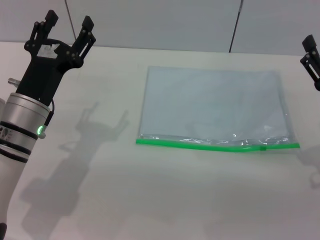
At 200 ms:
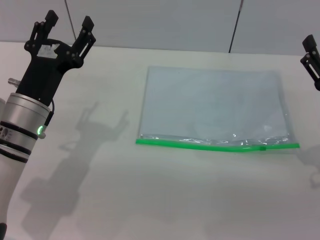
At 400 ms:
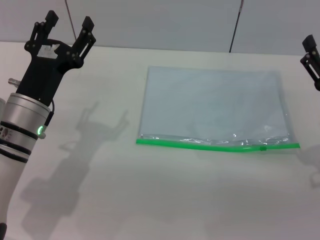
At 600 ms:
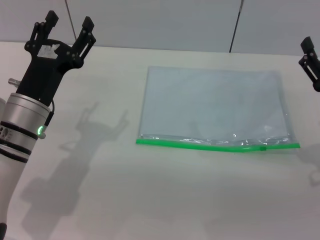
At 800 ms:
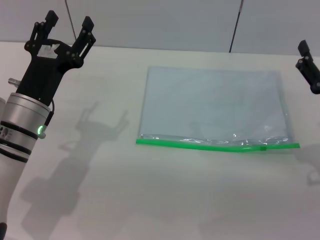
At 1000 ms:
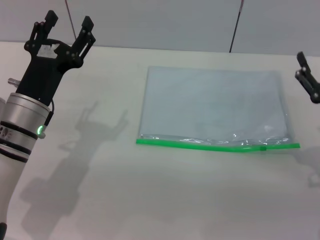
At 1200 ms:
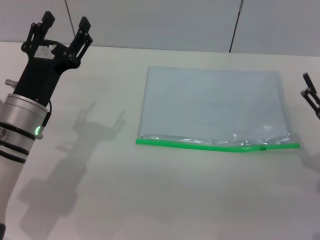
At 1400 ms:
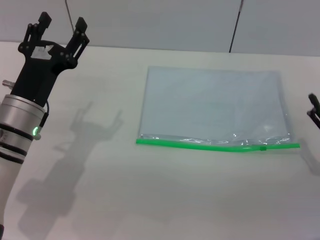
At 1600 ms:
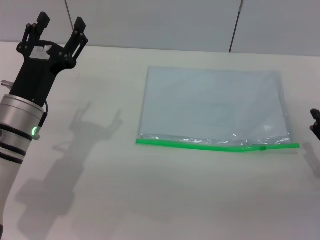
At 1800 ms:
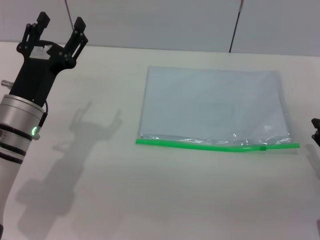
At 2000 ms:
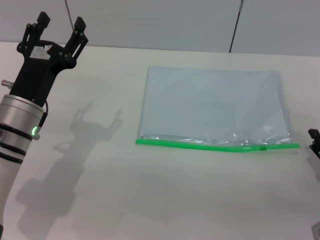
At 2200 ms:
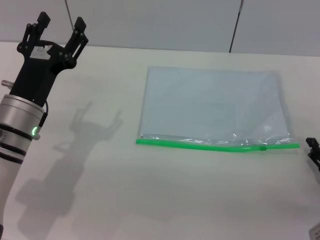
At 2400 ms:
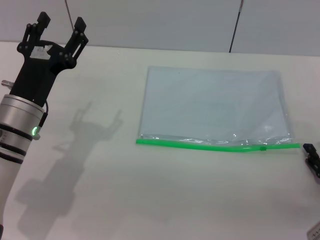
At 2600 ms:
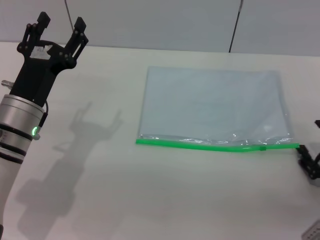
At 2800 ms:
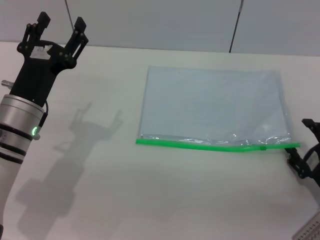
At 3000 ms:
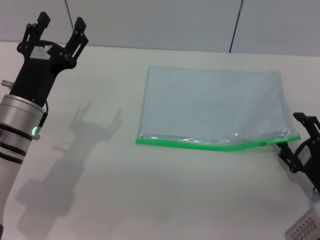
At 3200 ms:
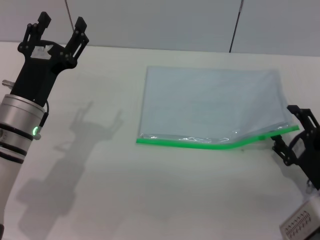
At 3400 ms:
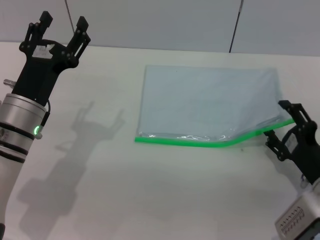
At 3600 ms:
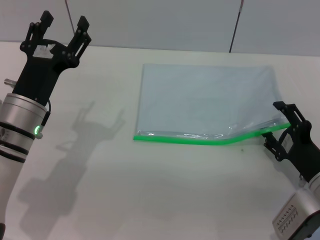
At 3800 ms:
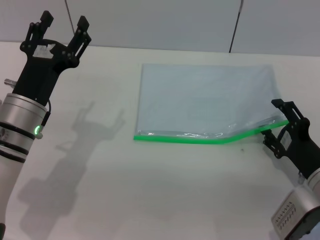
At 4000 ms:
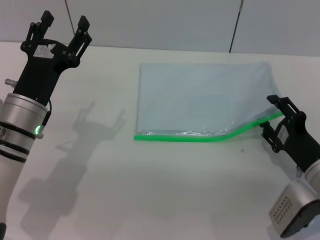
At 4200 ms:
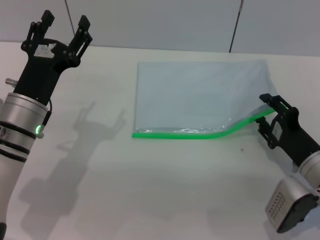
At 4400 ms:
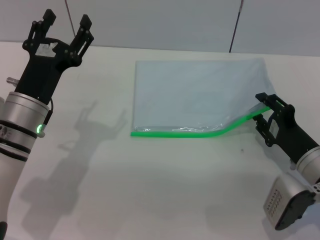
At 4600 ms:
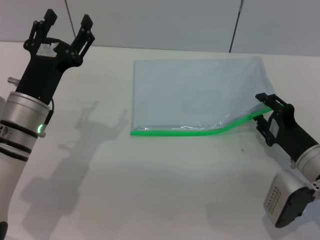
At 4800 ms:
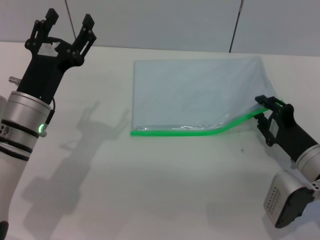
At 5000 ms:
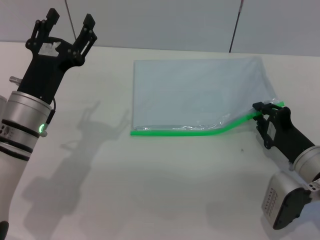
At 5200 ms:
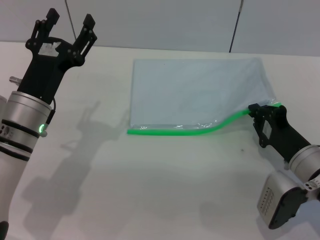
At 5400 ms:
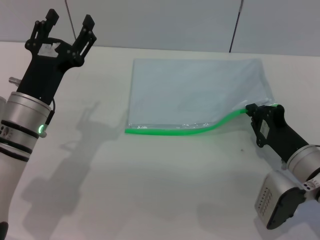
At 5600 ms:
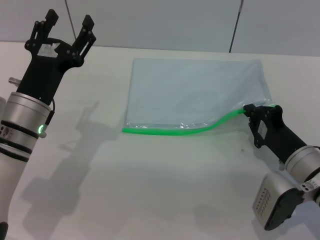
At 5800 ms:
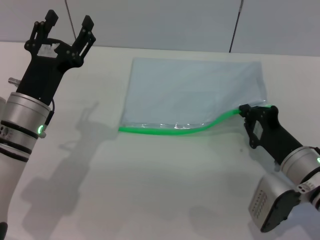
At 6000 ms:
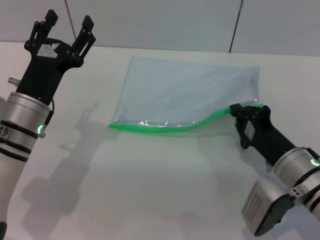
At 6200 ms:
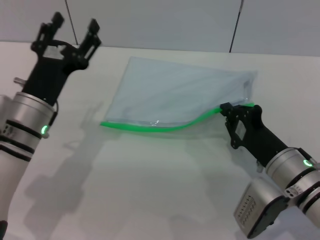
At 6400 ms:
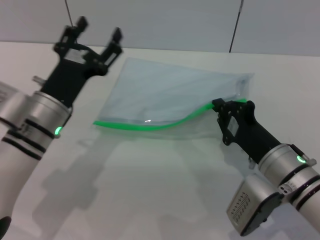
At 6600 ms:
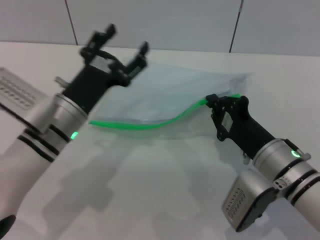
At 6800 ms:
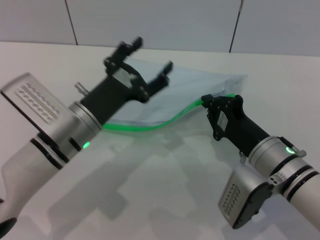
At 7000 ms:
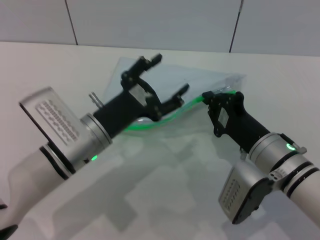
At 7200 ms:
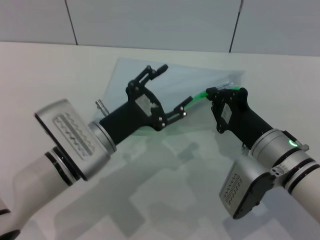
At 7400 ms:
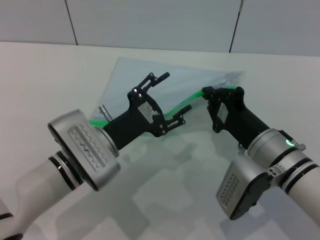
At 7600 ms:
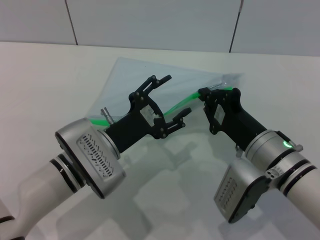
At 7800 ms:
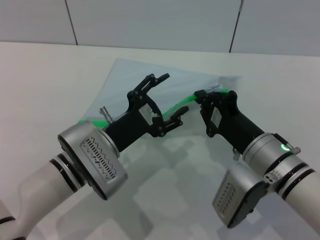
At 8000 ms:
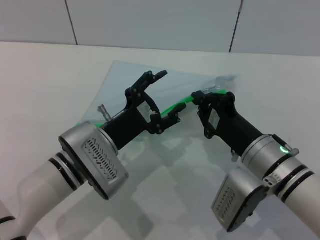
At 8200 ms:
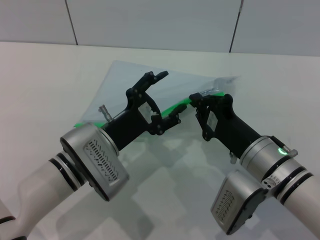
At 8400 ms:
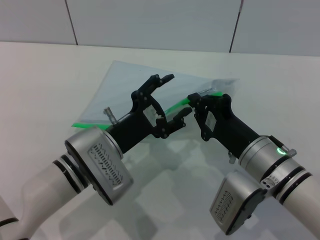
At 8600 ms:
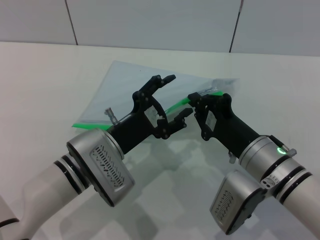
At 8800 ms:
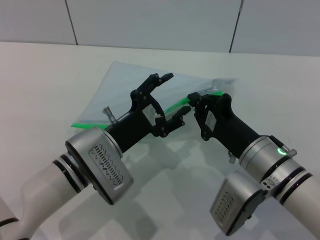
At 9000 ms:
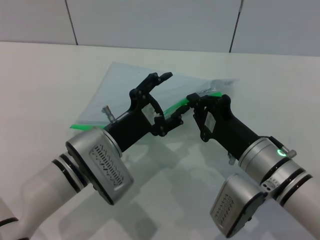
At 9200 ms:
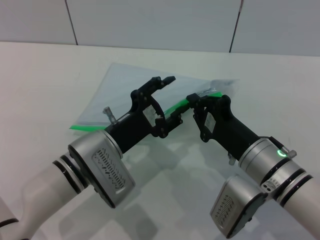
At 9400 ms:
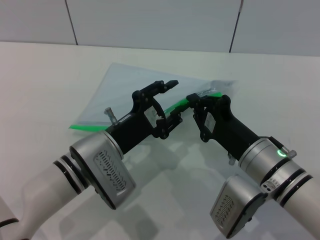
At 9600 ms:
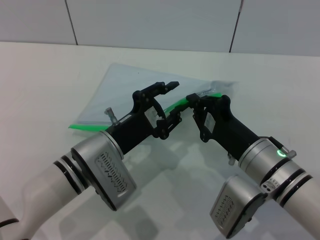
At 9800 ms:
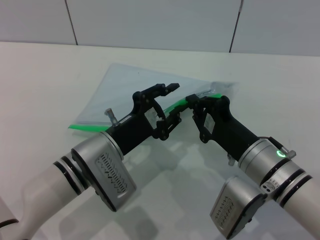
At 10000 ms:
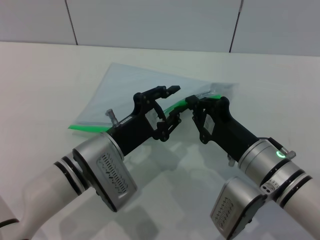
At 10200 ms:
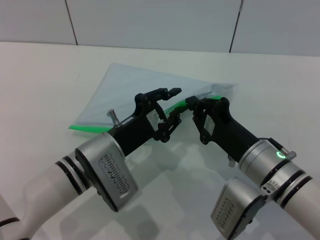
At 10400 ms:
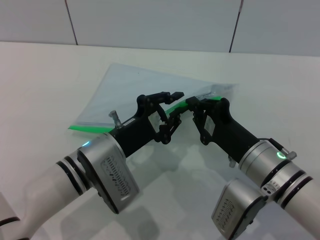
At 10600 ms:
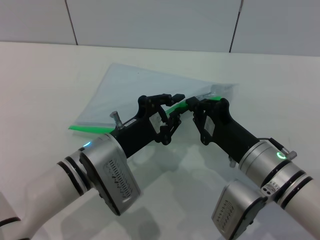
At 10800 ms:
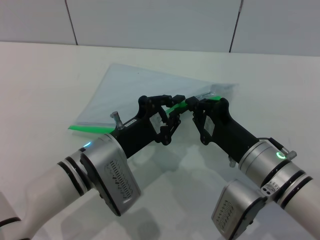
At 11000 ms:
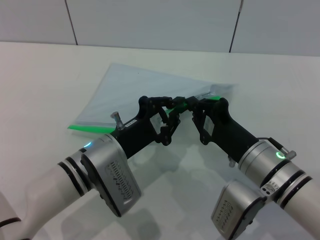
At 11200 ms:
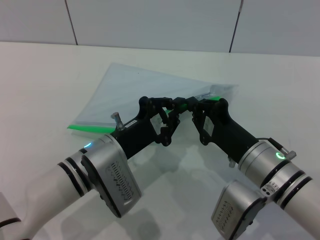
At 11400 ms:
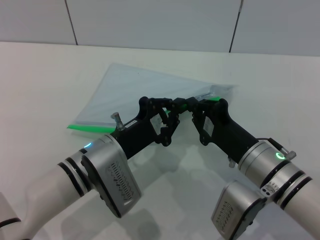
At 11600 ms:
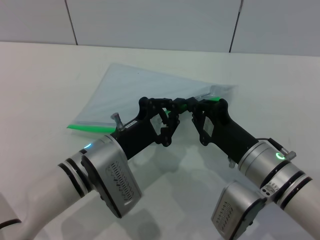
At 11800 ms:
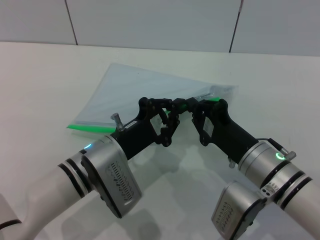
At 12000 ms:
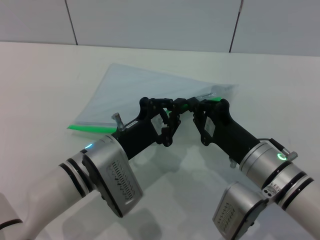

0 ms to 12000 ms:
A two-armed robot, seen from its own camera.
Step, 0 ms to 6600 ms: Pick up the transparent plastic bag with the right gripper.
0 ms to 1600 ms: The right gripper travels downward by roughly 5 cm.
3000 ms to 4400 ms: The right gripper goes roughly 5 cm forward.
4400 ms to 6000 ms: The right gripper closes.
6000 ms to 7600 ms: The left gripper travels to the right by some 10 cm. The right gripper shifts by about 5 cm.
7600 ms to 9000 ms: The grippers make only small movements.
9000 ms to 10400 ms: The left gripper closes.
10400 ms to 12000 ms: Neither gripper changes place.

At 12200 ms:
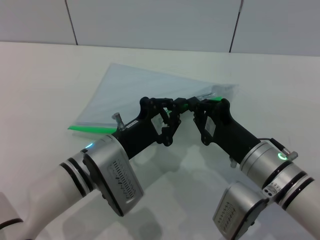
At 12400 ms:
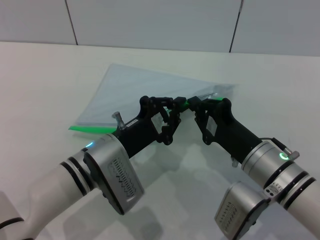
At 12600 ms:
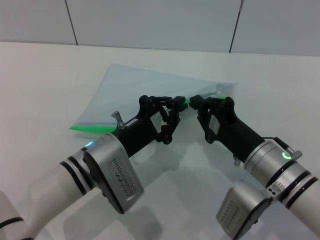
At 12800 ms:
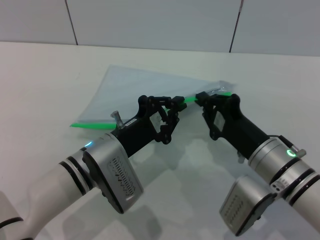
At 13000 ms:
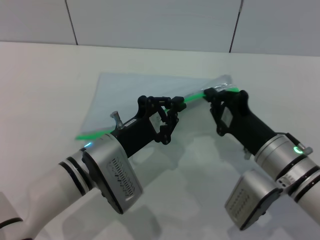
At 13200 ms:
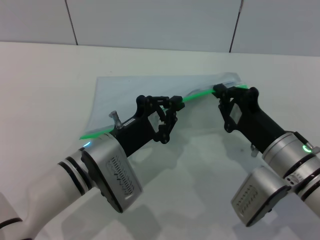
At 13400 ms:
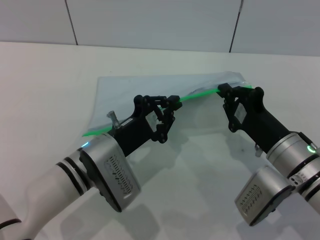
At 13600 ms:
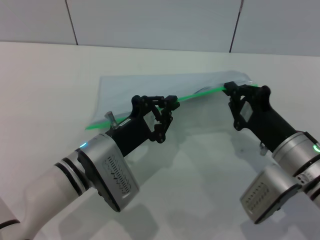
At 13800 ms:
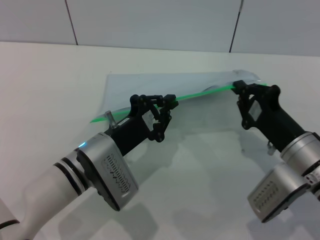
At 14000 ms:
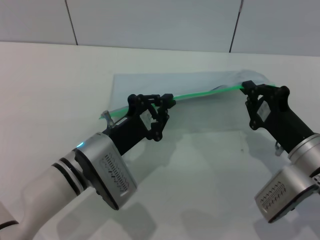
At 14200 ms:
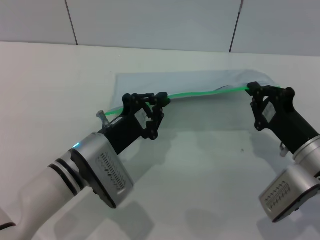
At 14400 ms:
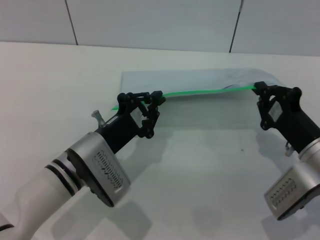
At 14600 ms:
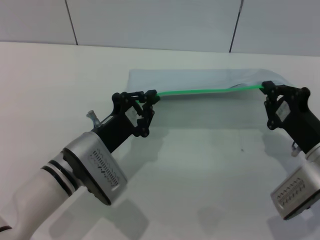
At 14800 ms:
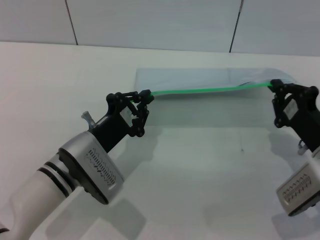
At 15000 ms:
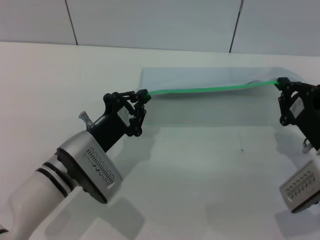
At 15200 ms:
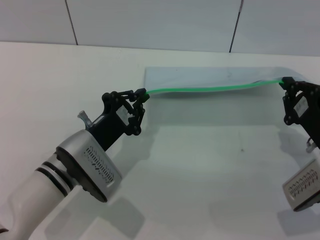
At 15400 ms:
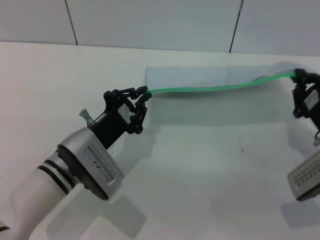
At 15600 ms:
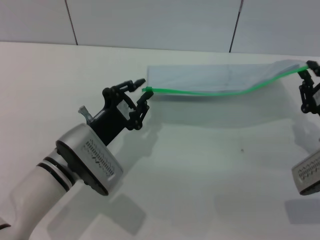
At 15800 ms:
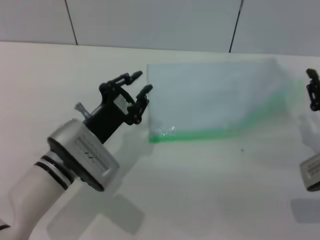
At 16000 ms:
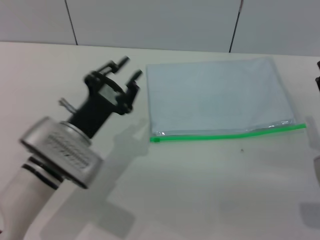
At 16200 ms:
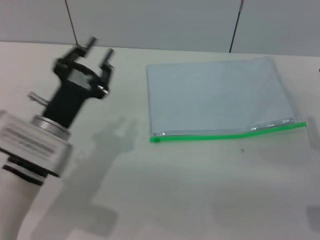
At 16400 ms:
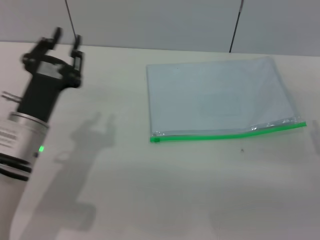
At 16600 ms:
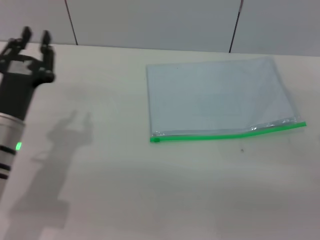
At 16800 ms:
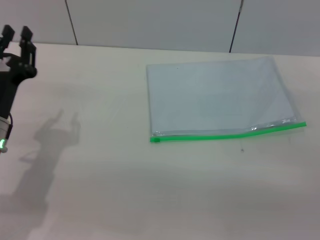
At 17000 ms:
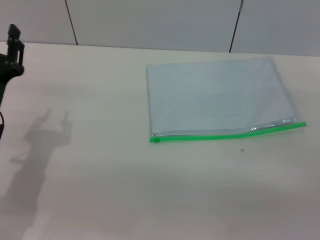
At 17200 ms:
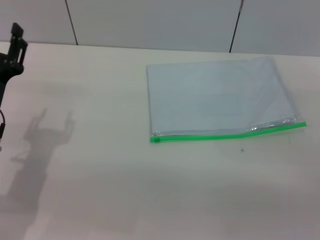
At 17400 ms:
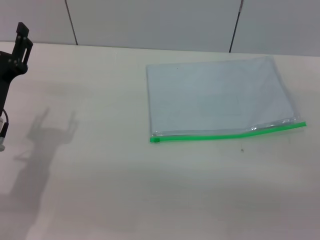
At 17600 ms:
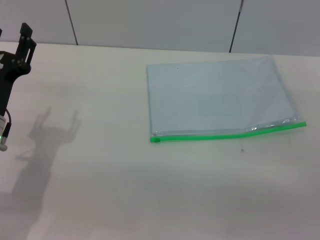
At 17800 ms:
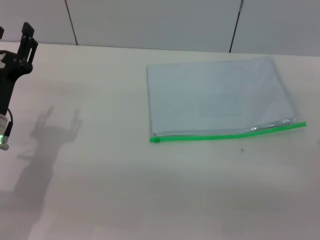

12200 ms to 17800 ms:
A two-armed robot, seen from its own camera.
Step, 12200 ms to 15400 ms: Pulling up the zipper on the transparent plastic bag with the left gripper to close it.
Step, 15800 ms to 16400 ms: Place the transparent plastic bag.
13600 ms to 15000 ms: The right gripper is displaced to the right by roughly 5 cm.
15000 ms to 16400 ms: The right gripper opens its fingers. The left gripper moves approximately 5 cm.
16400 ms to 17800 ms: The left gripper moves to the left, approximately 5 cm, and opens up.
